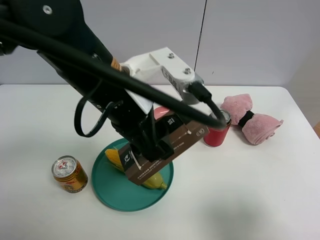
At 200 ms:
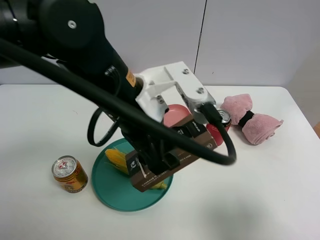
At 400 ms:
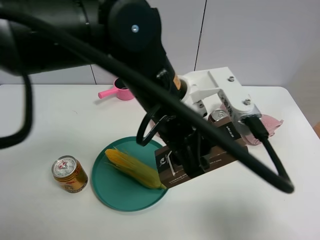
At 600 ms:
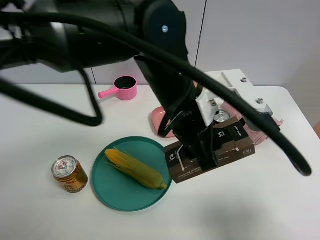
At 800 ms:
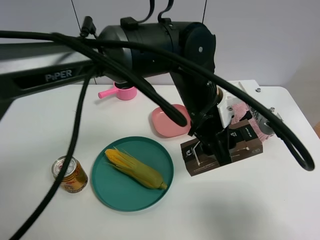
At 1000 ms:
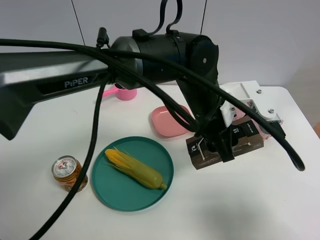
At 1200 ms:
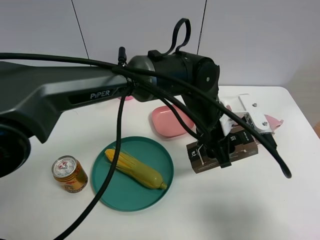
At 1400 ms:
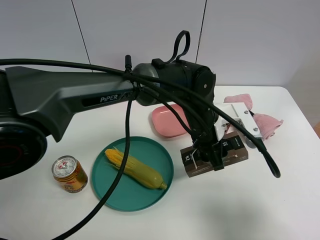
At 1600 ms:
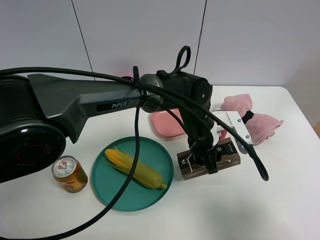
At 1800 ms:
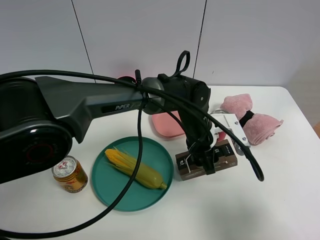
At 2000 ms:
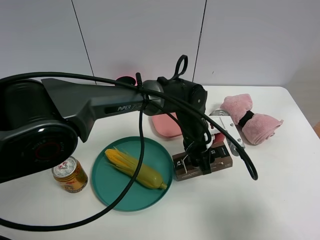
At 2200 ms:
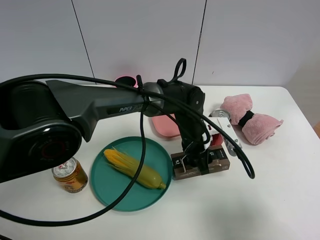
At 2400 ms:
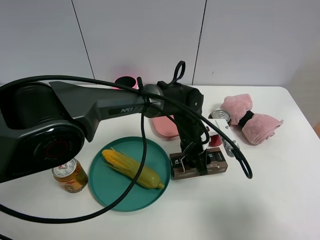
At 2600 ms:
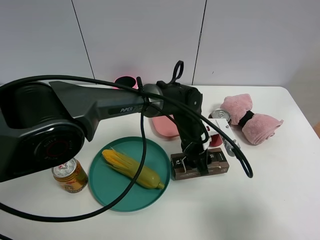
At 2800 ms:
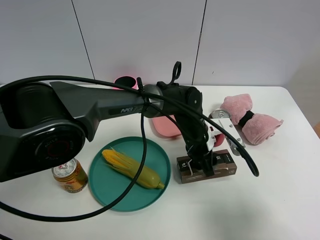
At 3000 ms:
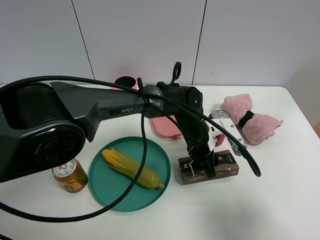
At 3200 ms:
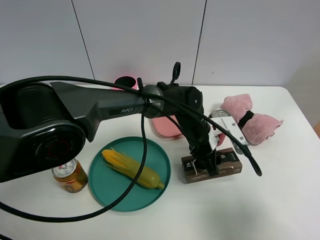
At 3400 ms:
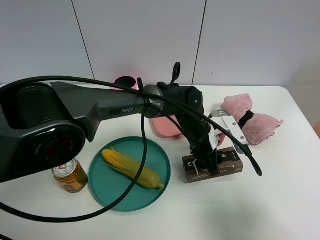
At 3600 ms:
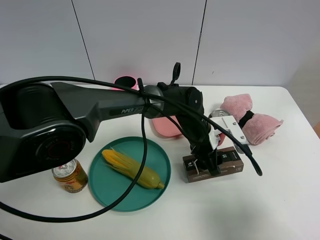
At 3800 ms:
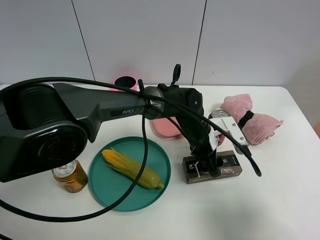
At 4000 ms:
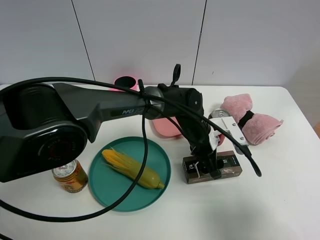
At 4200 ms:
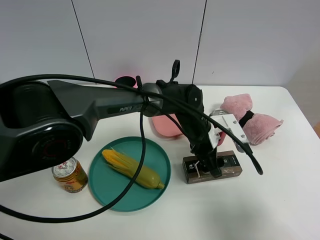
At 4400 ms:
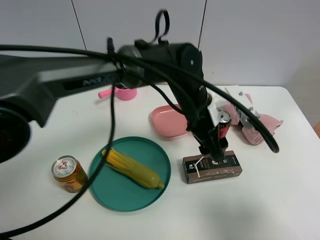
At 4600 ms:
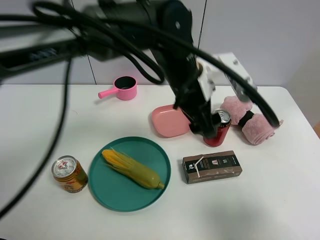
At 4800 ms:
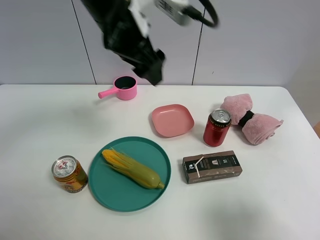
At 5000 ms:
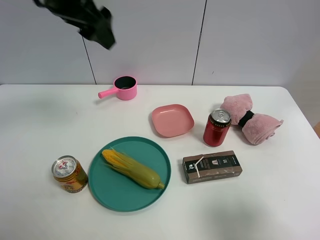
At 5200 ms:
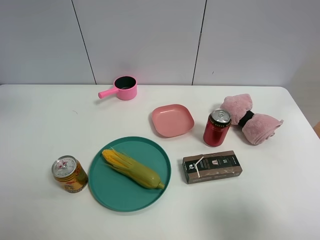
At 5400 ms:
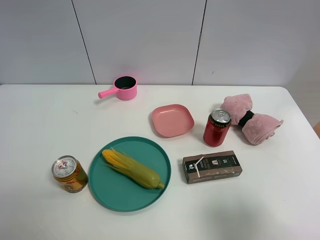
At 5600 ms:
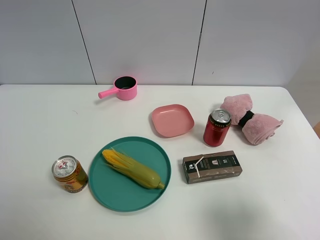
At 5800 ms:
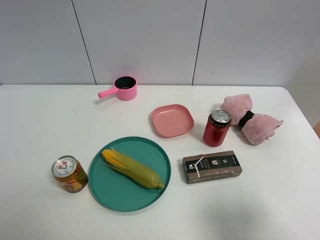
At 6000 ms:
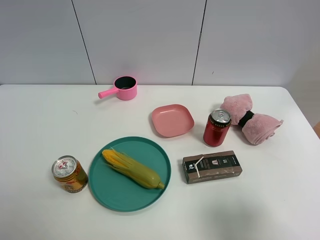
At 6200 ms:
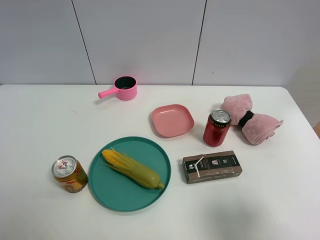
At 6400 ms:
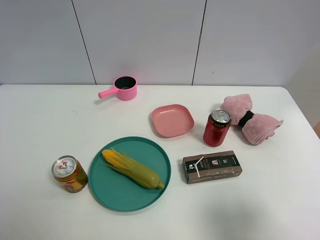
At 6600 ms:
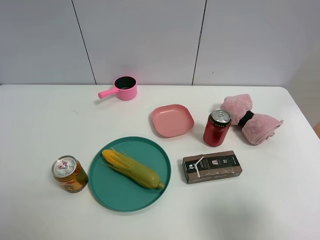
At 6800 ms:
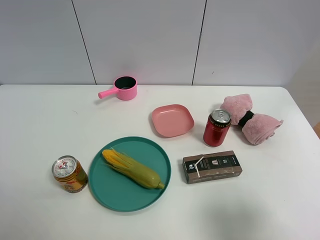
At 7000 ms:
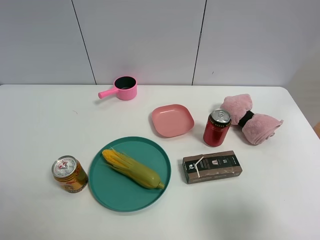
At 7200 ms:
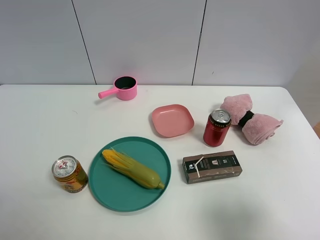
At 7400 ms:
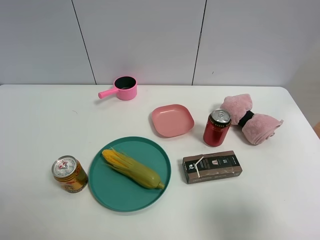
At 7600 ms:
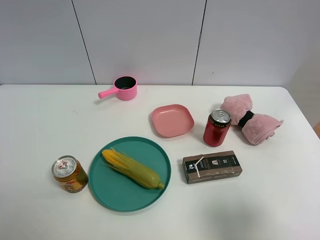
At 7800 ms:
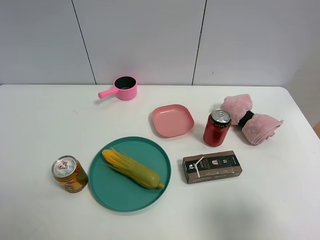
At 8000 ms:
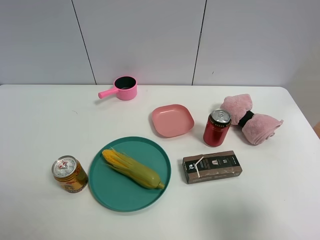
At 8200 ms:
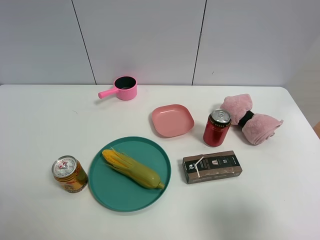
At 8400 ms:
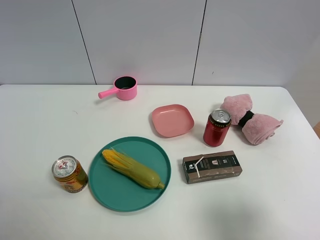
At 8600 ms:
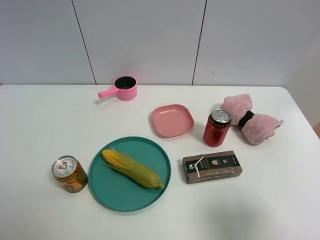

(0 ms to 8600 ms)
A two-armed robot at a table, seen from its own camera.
Task of the whole recording: the gripper move the object.
Step, 0 ms - 4400 ms: Place the black box on the table with the left gripper.
0 ms - 1400 ms: The left gripper moves to the right, downward and forward, roughly 20 cm.
1400 ms - 2800 ms: The left gripper travels downward by approximately 5 cm.
2800 ms - 4400 ms: The left gripper moves upward, roughly 10 cm, and opens its fingers.
4400 ms - 5800 ms: The left gripper heads to the left, upward and backward, covering some 60 cm.
7200 ms - 8600 ms: Both grippers stay put.
